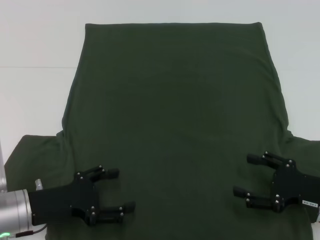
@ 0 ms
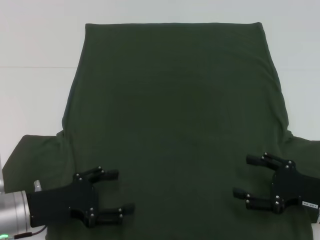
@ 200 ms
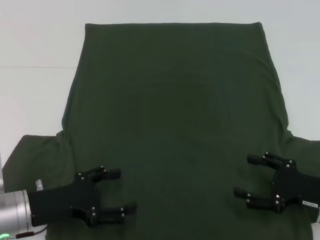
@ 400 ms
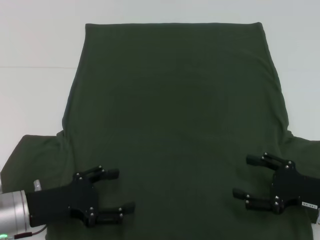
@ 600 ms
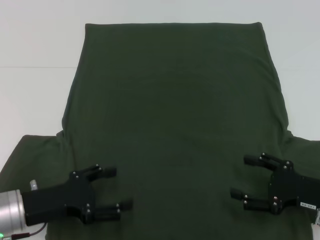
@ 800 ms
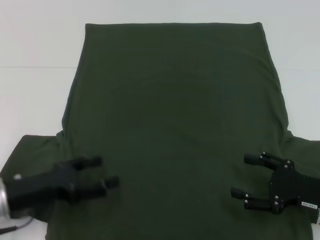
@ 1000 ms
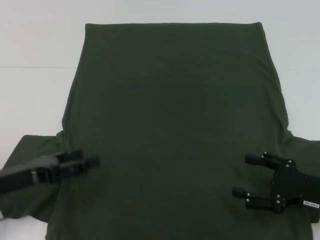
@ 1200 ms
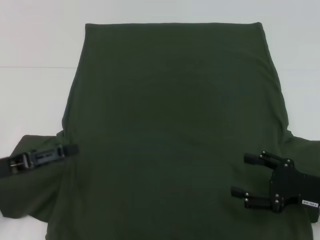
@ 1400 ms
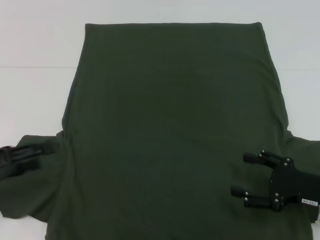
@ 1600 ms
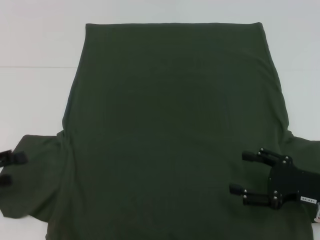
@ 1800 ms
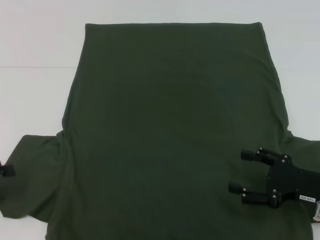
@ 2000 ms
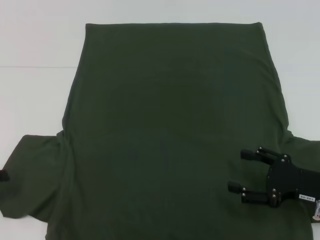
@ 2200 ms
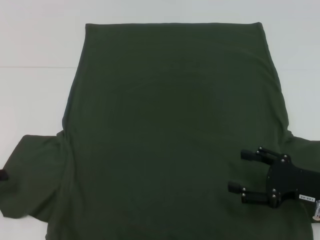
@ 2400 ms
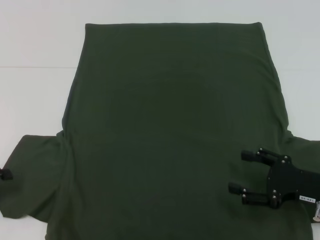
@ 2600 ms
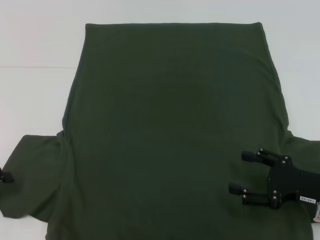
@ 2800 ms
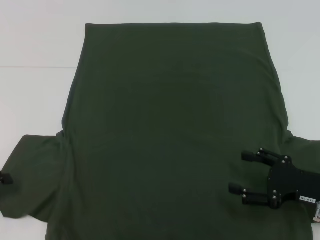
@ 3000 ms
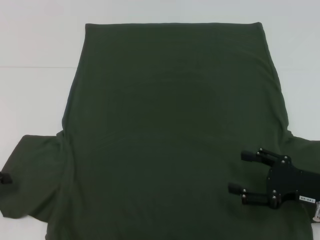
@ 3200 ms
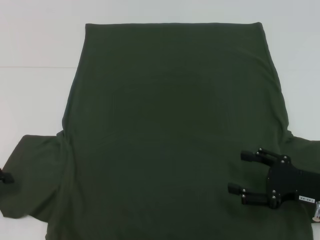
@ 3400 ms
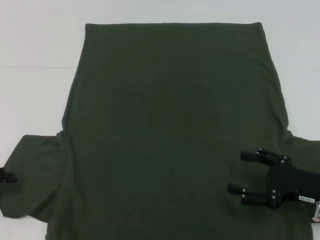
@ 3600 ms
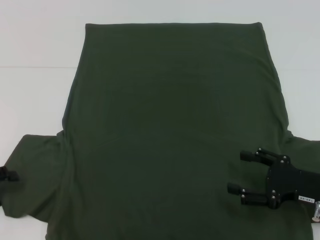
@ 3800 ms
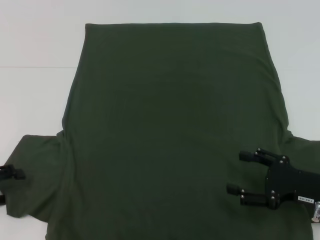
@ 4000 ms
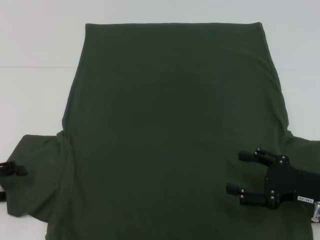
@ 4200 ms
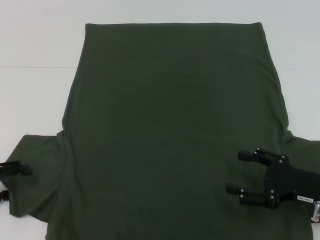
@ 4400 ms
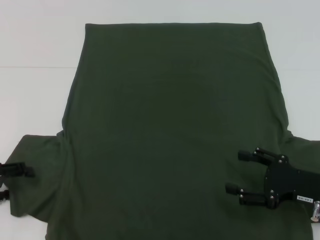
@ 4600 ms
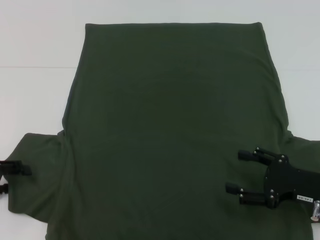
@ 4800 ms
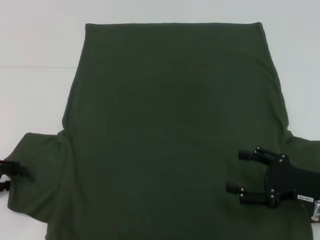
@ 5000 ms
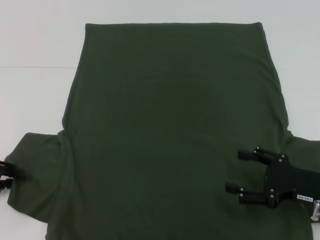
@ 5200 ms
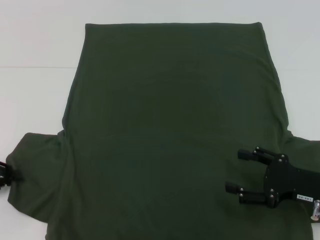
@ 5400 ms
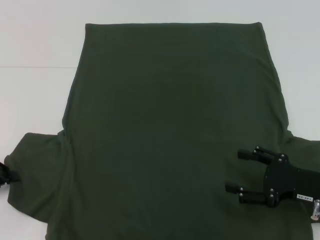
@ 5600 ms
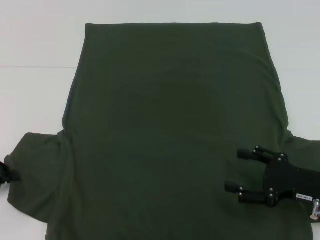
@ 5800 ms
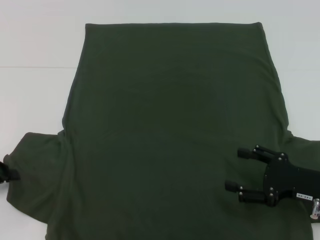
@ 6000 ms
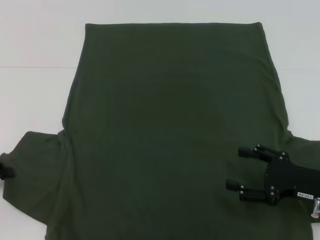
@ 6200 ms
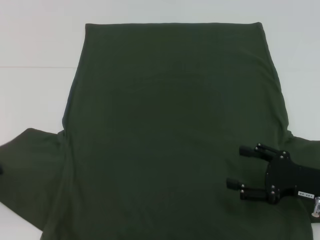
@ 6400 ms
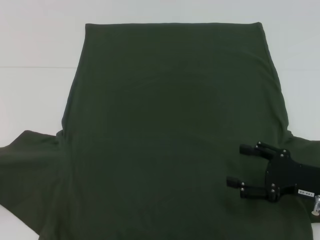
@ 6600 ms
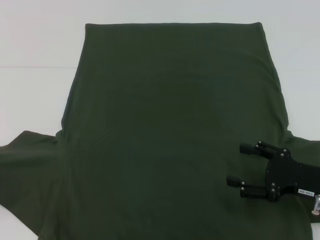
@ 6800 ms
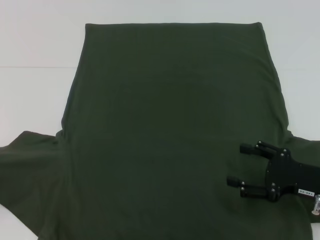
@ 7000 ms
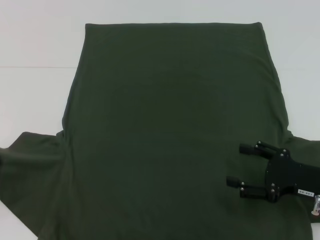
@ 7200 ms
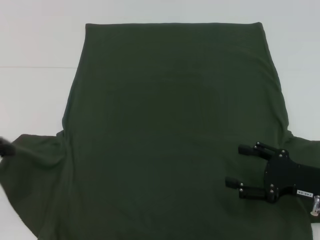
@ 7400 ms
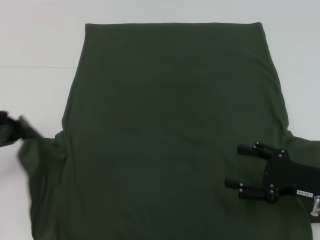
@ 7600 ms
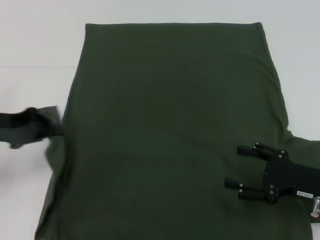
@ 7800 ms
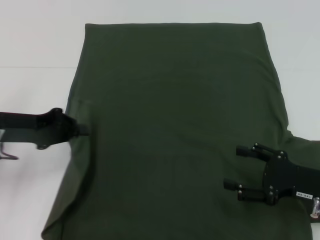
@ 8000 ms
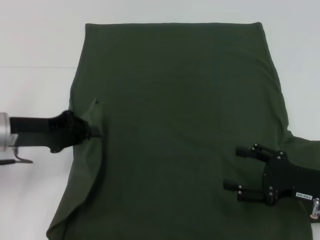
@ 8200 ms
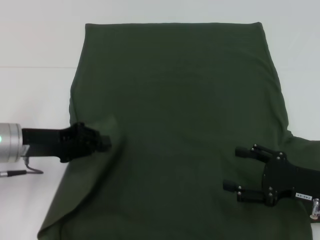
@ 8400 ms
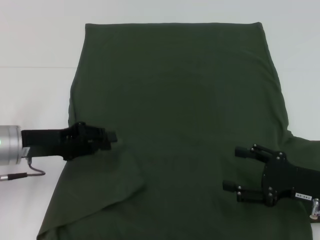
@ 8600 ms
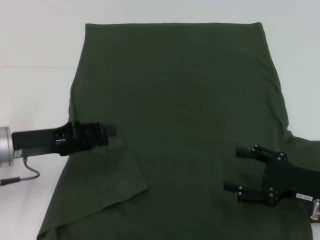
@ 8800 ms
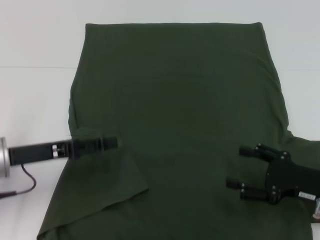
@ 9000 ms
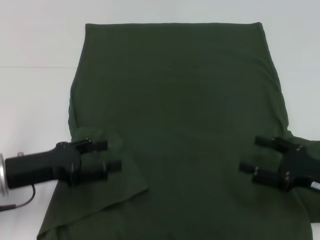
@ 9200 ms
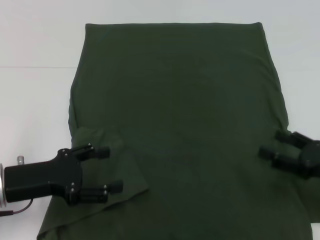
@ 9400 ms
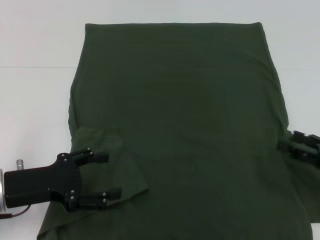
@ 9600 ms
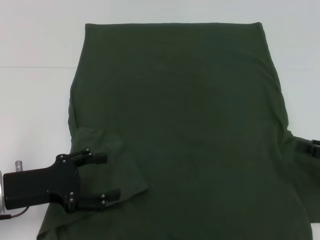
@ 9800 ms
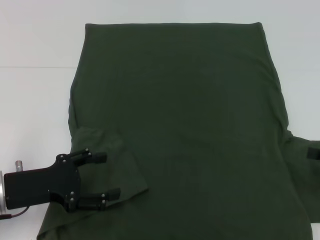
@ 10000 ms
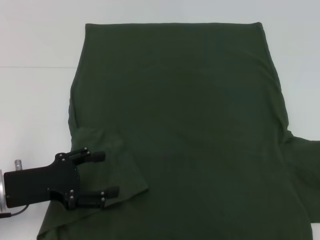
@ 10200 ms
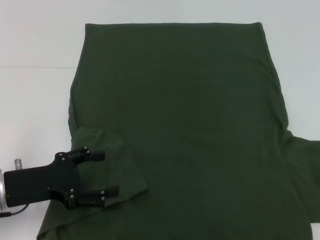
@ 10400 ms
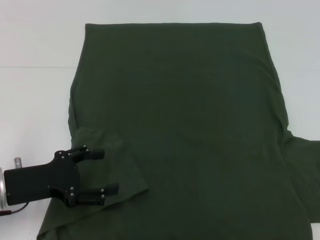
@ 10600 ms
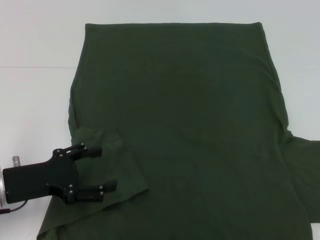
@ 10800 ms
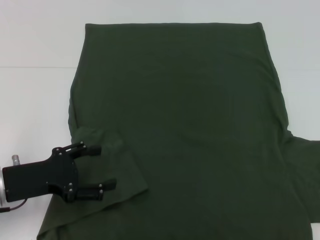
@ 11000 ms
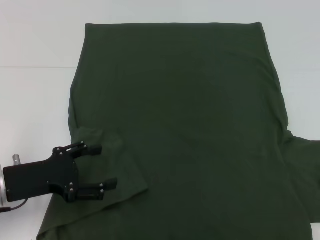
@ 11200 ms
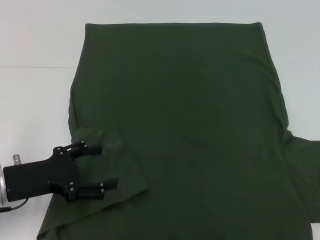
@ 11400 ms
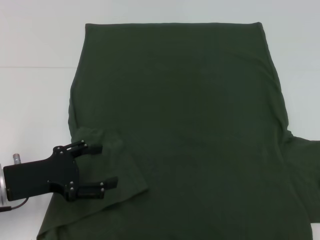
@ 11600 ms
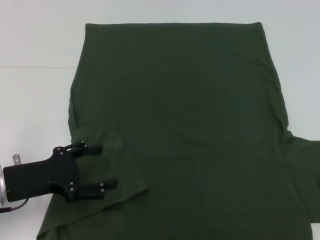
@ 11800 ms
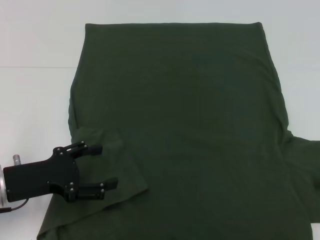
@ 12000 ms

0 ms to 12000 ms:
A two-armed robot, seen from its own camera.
Step, 0 ms to 8800 ms: Fold the bottom left sleeve with your left hand.
0 ms to 1600 ms: The left gripper travels to the left and upward by roughly 10 cm.
1600 ms to 3000 ms: The left gripper ends up roughly 5 cm from where it was.
3000 ms to 4400 ms: The grippers stay close to where they were, moving slightly.
4400 ms to 6000 ms: The left gripper closes its fingers.
6000 ms to 7600 ms: The left gripper goes some 5 cm upward.
7600 ms to 9000 ms: The left gripper heads to the right and downward, covering approximately 10 cm, and opens its fingers.
9000 ms to 10400 ms: The left gripper opens up; the right gripper is displaced to the right and upward by some 15 cm.

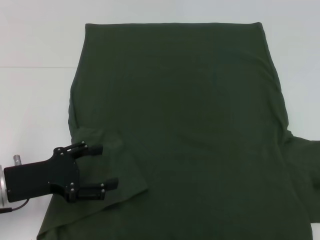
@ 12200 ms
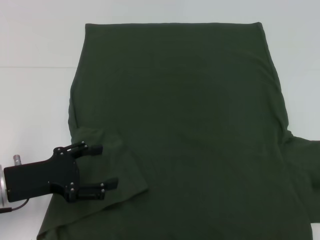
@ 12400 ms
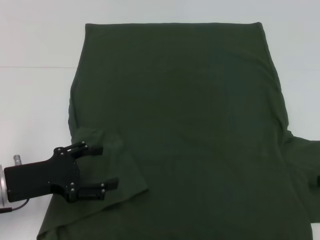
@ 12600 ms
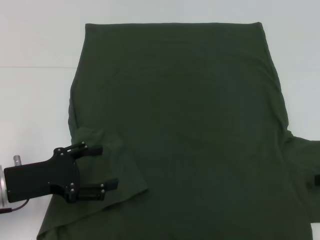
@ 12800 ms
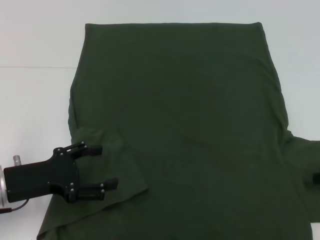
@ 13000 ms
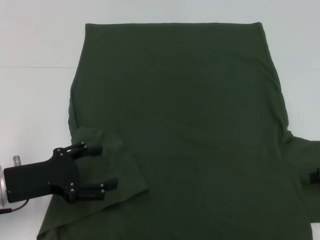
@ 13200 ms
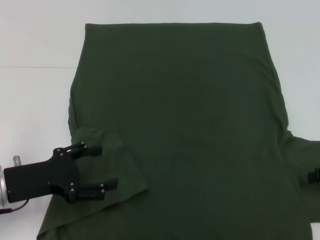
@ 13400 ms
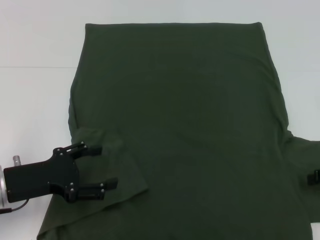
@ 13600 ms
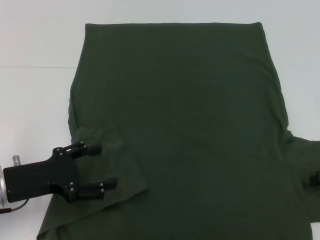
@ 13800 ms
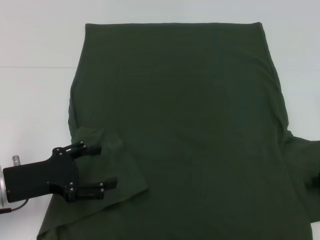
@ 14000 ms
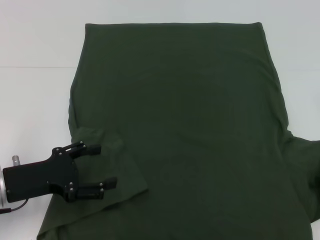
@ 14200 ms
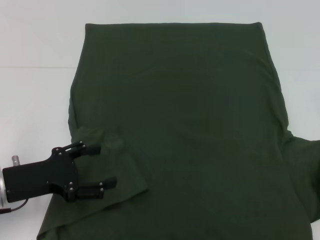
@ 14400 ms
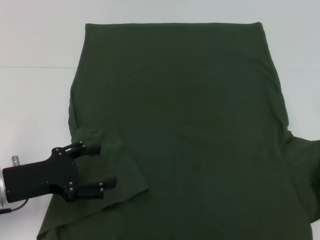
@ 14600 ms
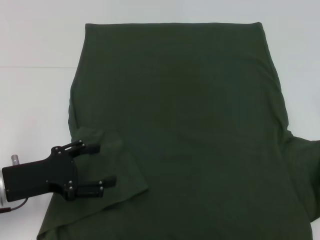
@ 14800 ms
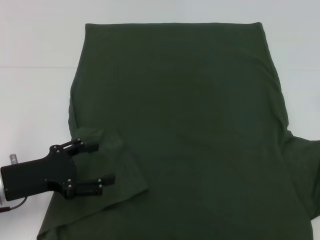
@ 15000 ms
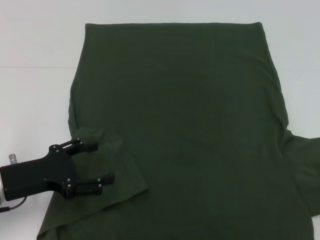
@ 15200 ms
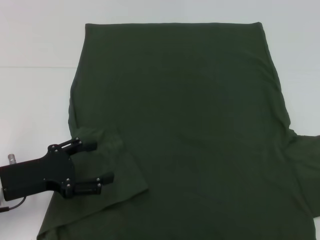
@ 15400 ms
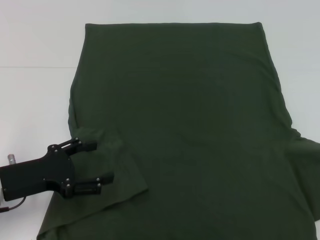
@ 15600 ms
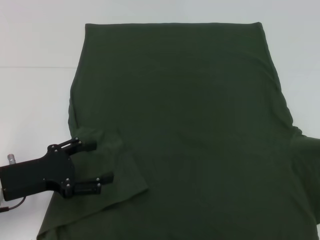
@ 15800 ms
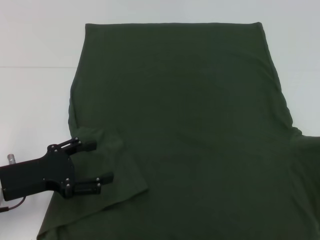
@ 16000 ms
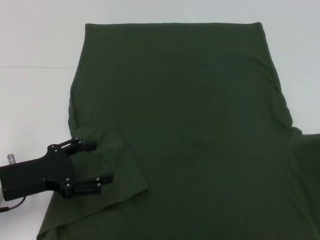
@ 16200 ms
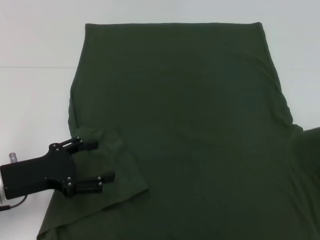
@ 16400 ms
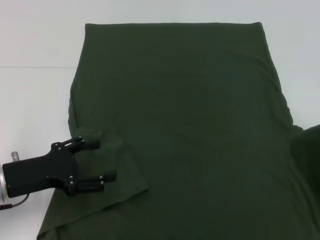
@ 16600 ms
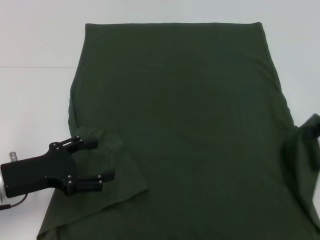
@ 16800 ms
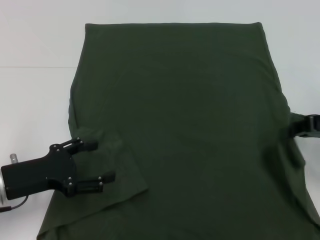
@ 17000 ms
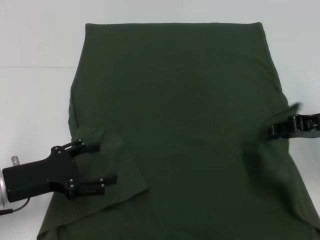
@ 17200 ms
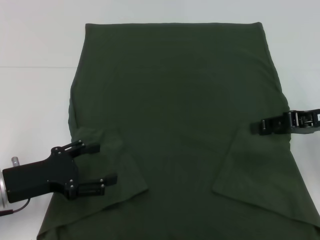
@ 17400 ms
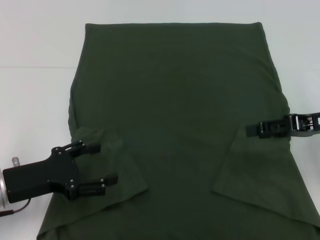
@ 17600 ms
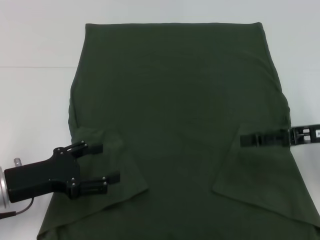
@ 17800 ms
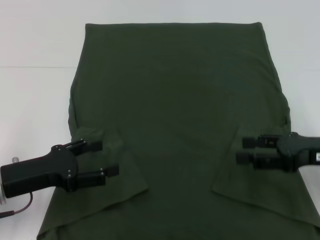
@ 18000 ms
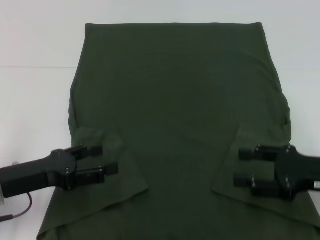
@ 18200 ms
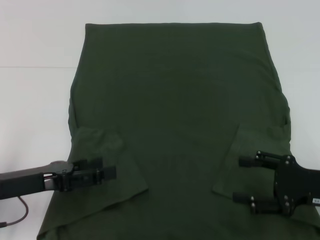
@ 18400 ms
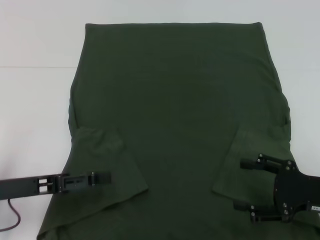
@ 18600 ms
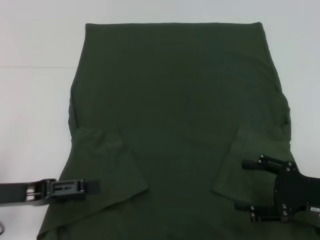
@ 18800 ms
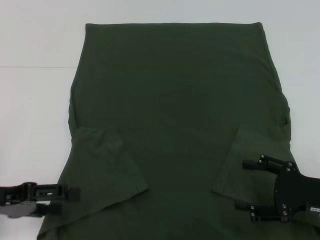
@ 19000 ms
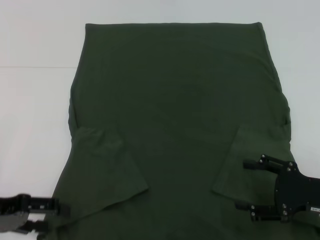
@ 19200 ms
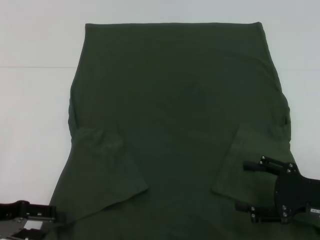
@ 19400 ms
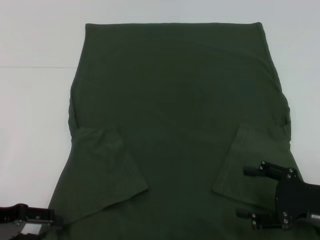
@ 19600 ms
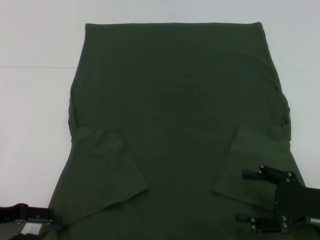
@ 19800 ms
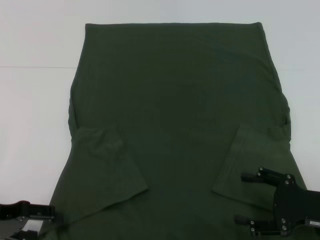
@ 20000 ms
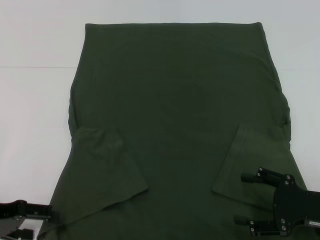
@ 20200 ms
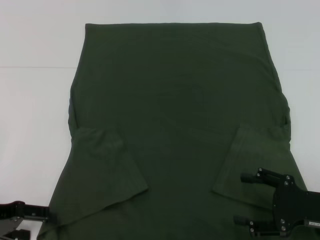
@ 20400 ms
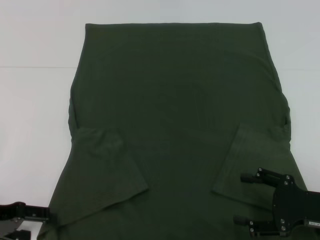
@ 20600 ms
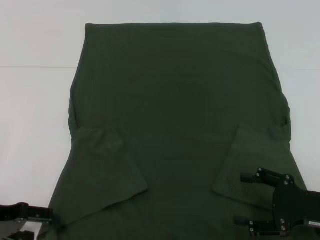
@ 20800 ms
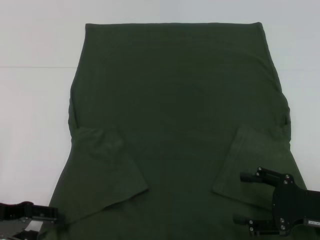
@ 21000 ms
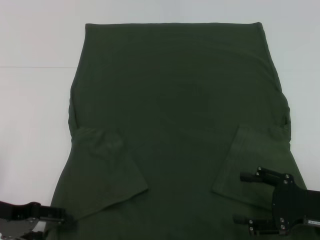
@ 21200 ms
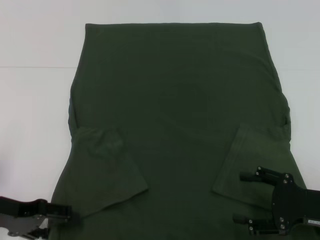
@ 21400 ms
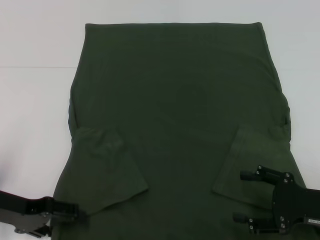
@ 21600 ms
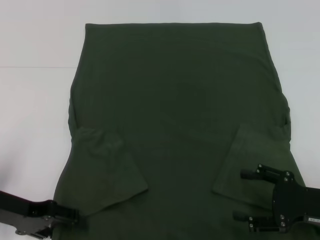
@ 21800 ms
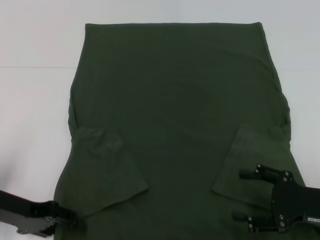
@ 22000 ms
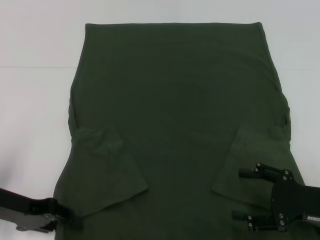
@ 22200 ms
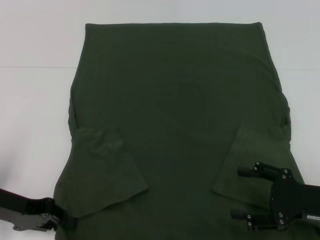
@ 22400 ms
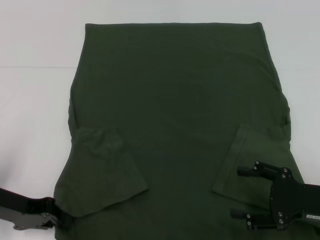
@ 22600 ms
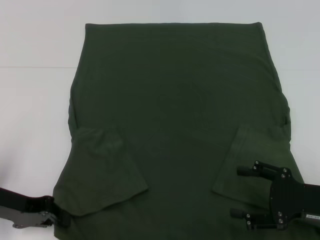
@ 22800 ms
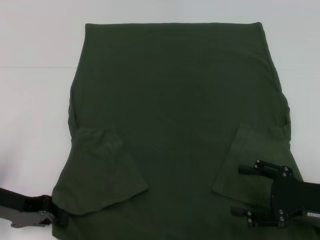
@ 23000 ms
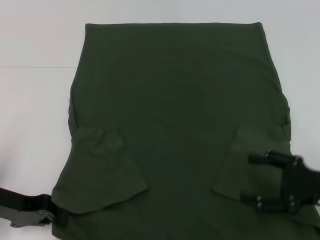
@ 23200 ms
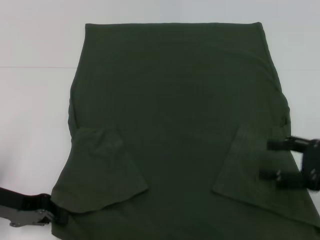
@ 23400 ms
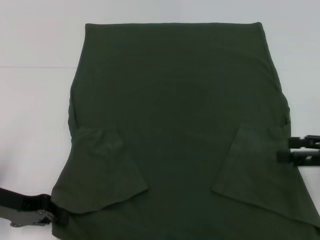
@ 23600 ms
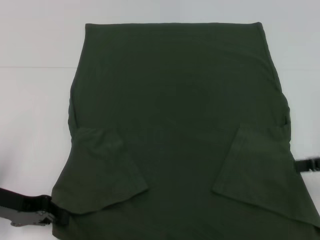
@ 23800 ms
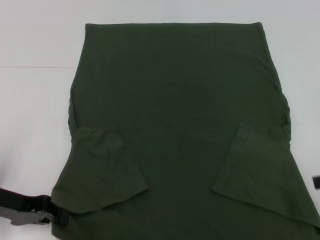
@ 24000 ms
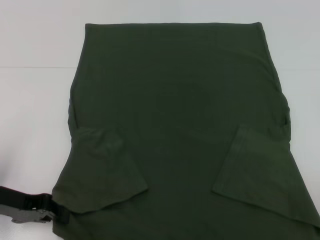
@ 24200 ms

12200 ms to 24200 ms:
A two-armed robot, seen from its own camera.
Step, 12200 ms to 17600 ms: Fold the bottom right sleeve with your right hand.
Step, 17800 ms to 22800 ms: Grab the bottom left corner with your left hand.
15200 ms to 16600 ms: The right gripper shifts approximately 5 cm upward.
16600 ms to 18200 ms: The right gripper heads to the left and downward, covering some 10 cm, and opens up.
18200 ms to 19800 ms: The right gripper shifts by roughly 5 cm, while the left gripper moves to the left, roughly 5 cm.
19800 ms to 21200 ms: The grippers make only small movements.
21200 ms to 22600 ms: The left gripper closes.
22600 ms to 24200 ms: The right gripper travels upward and to the right by about 15 cm.
